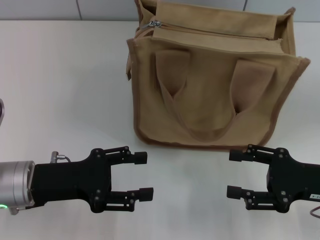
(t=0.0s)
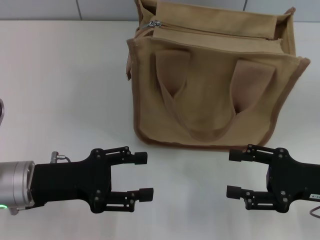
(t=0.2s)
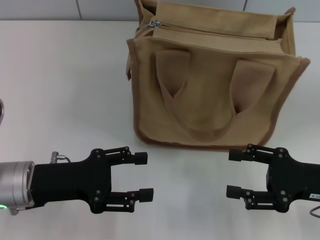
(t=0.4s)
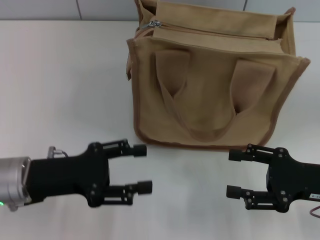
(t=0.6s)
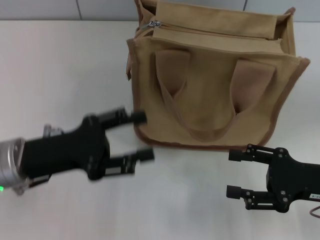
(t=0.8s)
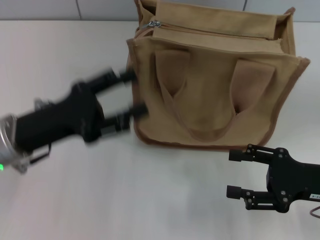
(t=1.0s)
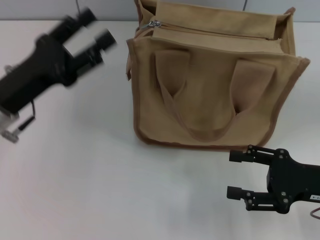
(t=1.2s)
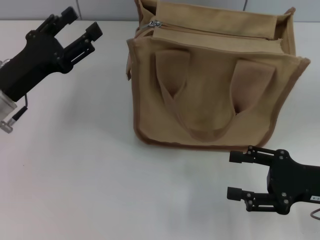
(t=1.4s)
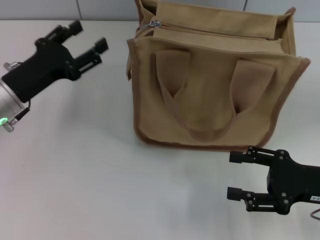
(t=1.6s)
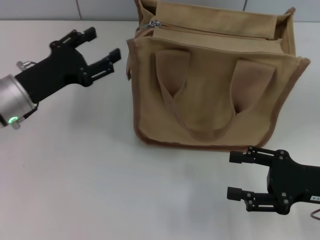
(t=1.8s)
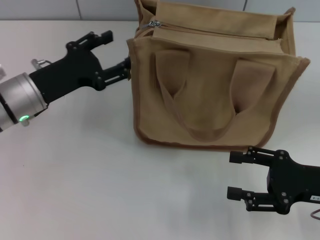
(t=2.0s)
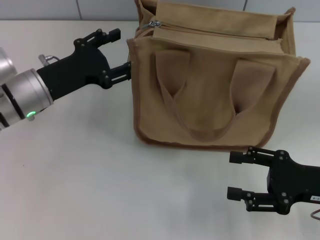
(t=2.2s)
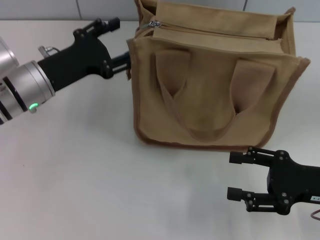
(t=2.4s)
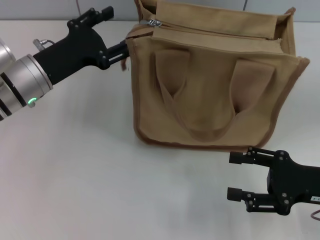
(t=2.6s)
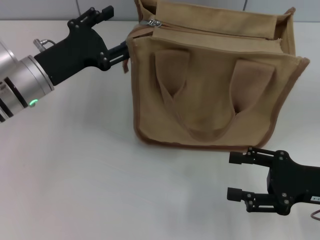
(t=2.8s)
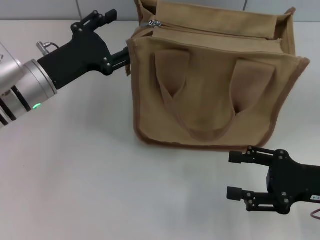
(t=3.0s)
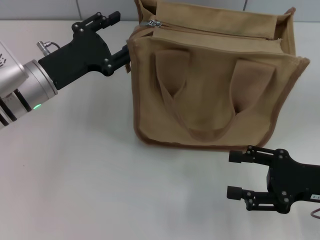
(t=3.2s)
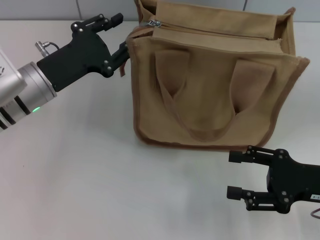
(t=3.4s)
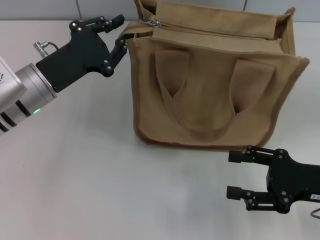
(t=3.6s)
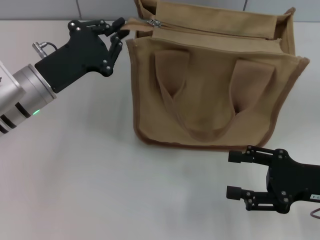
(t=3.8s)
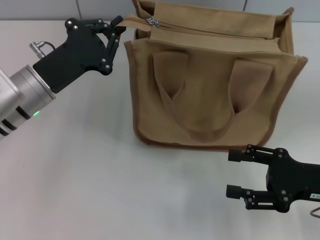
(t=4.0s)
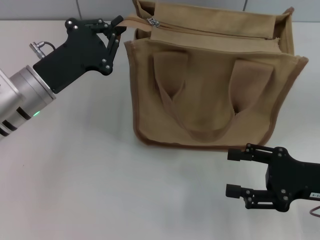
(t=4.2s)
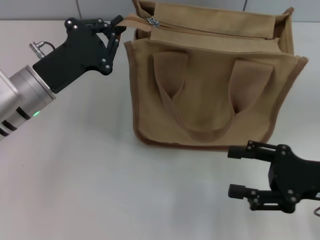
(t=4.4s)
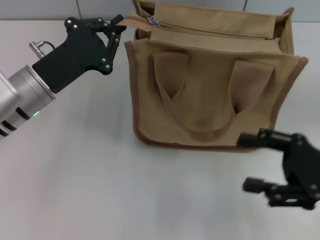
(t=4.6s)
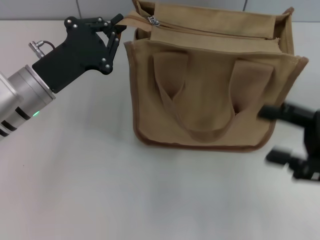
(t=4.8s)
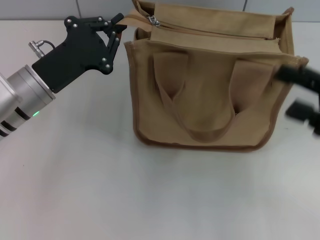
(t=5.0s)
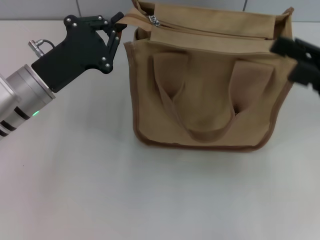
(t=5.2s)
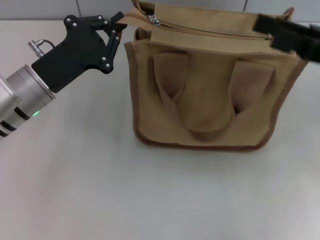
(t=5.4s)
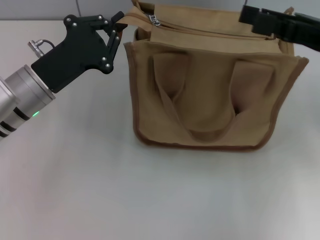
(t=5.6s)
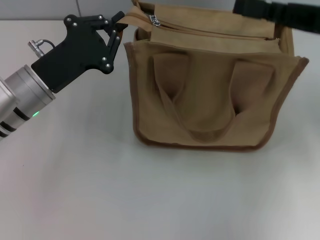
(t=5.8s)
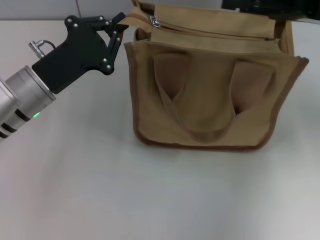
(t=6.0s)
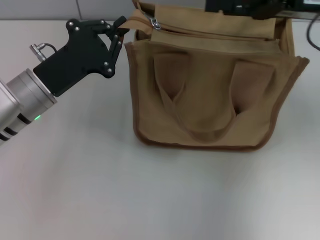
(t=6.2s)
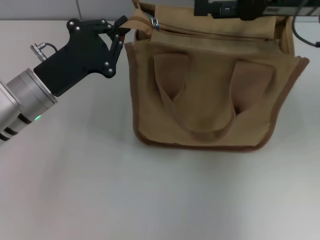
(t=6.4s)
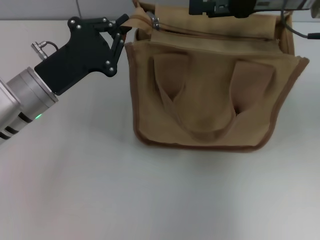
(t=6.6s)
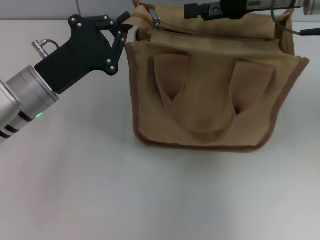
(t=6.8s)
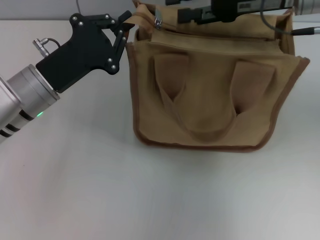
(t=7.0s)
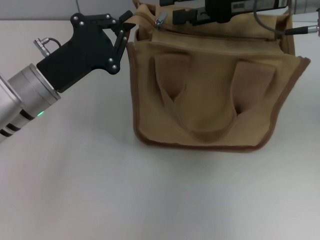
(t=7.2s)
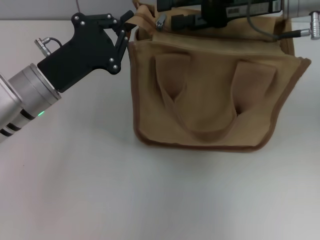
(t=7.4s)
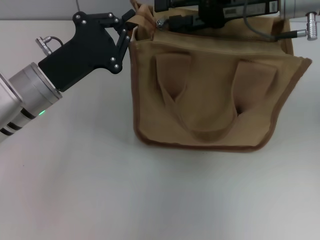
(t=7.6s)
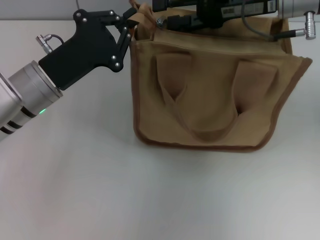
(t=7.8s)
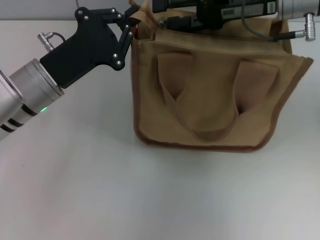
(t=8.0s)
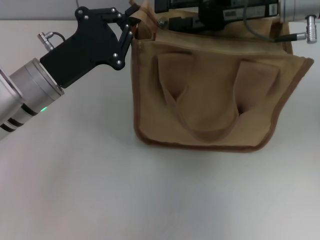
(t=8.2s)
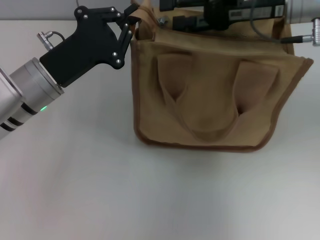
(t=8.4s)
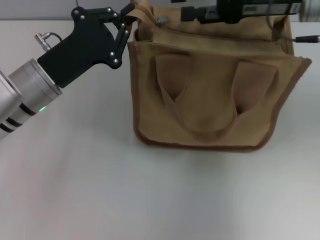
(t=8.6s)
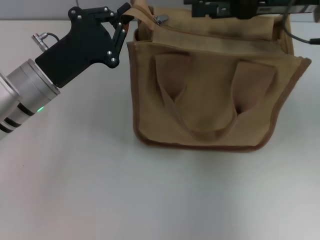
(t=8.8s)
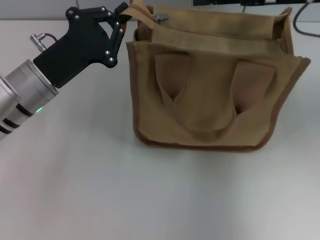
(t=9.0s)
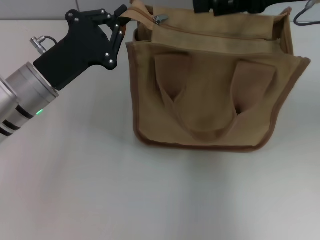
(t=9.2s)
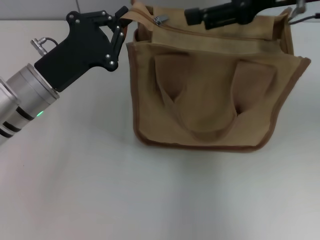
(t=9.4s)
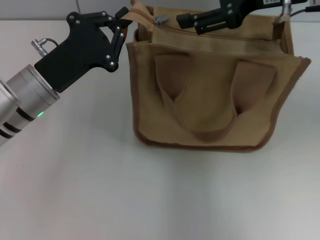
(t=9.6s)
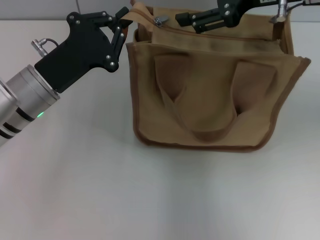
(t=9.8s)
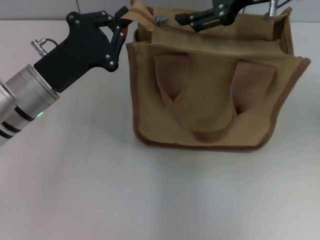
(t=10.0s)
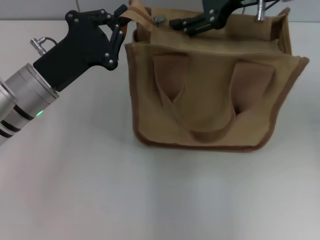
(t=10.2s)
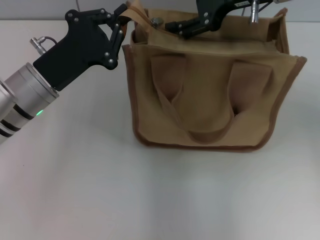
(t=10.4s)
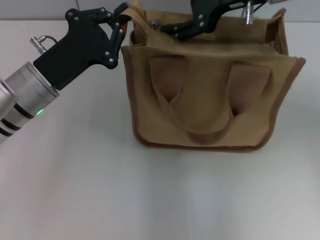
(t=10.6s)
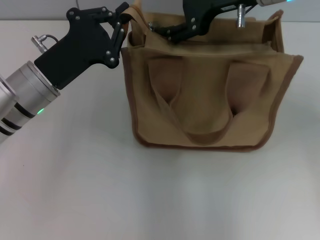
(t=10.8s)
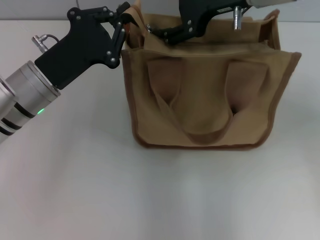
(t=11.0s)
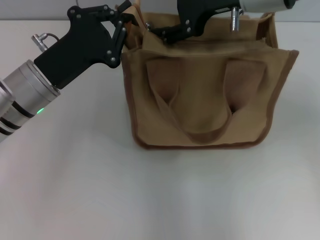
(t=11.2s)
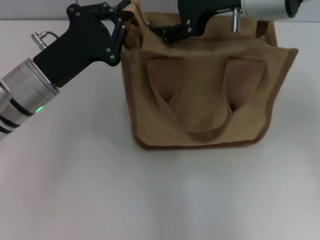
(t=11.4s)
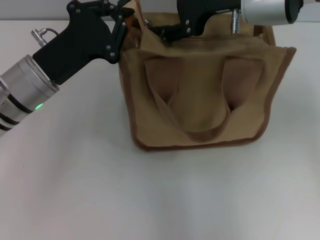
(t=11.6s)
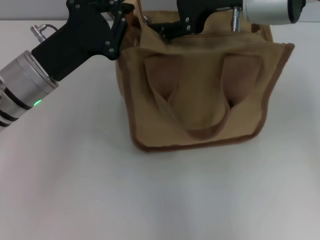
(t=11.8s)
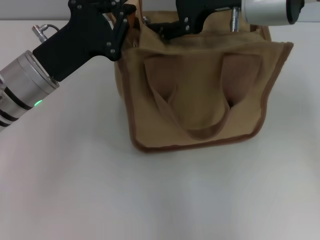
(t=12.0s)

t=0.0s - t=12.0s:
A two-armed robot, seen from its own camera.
t=0.0s - t=1.6s: The left gripper is displaced forward by some 10 cm.
t=1.6s - t=3.0s: The left gripper shifts by roughly 5 cm.
t=3.0s - t=4.4s: The left gripper closes its fingers.
t=4.4s - t=6.0s: The right gripper moves forward and upward, roughly 20 cm.
t=6.0s - t=7.6s: The right gripper travels to the left and forward by approximately 10 cm.
t=7.6s - t=9.0s: The right gripper moves about 5 cm.
t=9.0s - t=10.4s: The right gripper is displaced to the left by approximately 5 cm.
t=10.4s - t=12.0s: There are only small adjustments of the grippers.

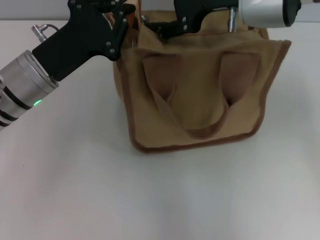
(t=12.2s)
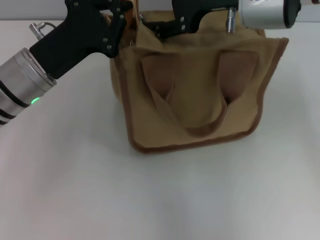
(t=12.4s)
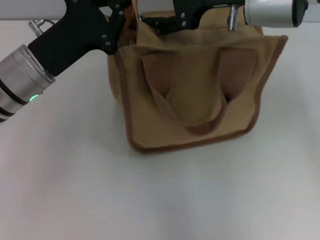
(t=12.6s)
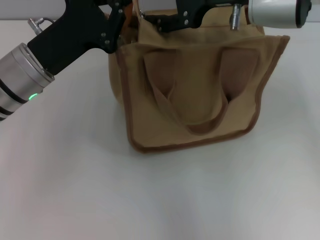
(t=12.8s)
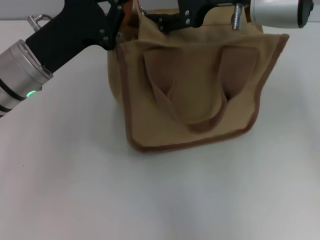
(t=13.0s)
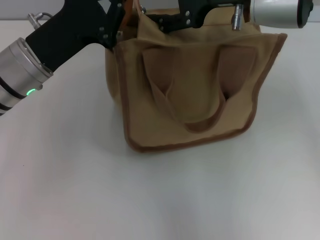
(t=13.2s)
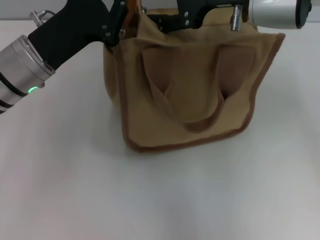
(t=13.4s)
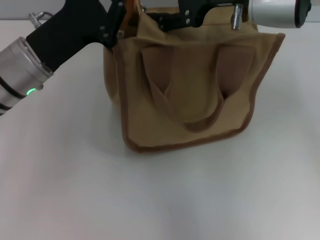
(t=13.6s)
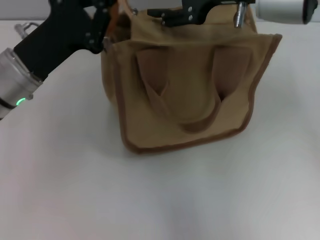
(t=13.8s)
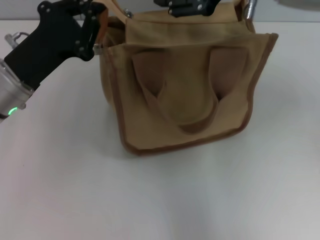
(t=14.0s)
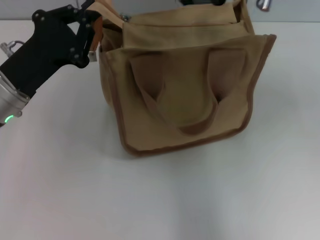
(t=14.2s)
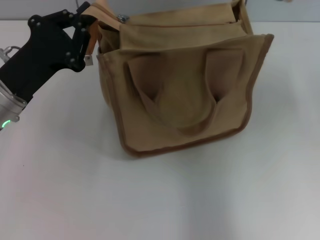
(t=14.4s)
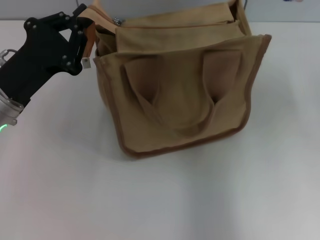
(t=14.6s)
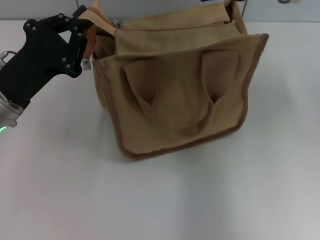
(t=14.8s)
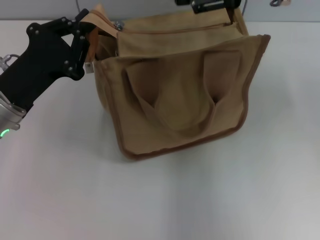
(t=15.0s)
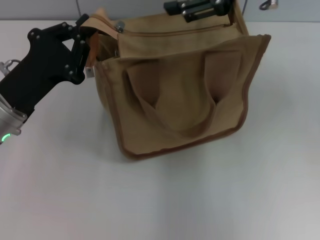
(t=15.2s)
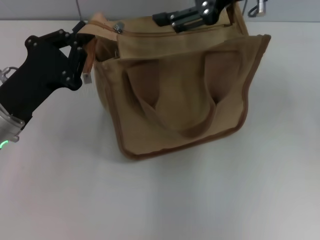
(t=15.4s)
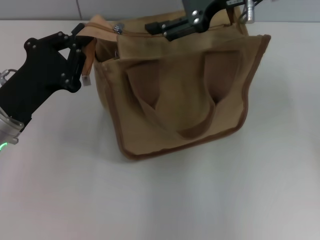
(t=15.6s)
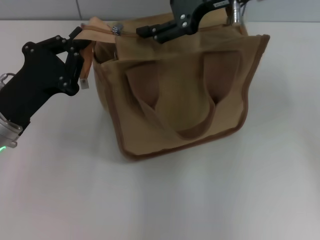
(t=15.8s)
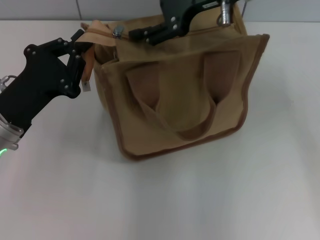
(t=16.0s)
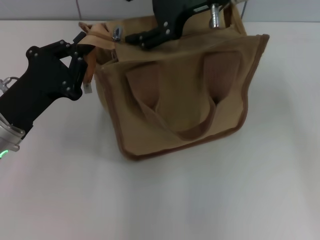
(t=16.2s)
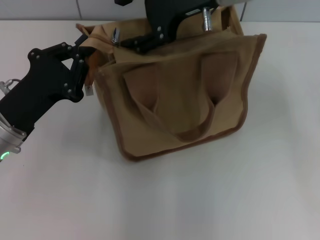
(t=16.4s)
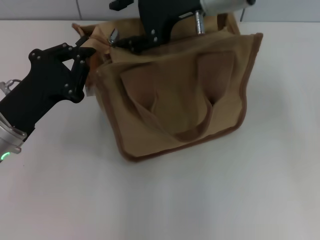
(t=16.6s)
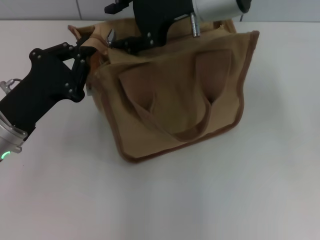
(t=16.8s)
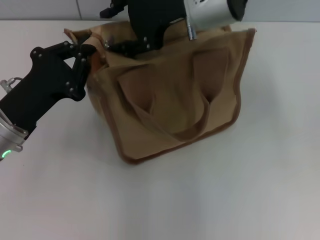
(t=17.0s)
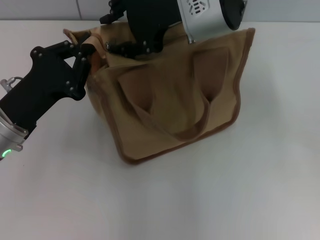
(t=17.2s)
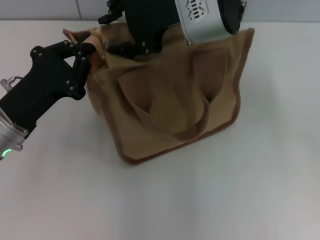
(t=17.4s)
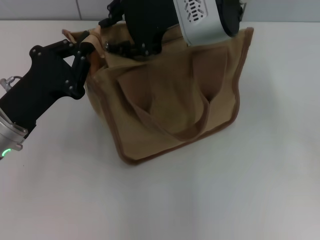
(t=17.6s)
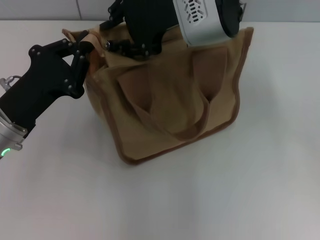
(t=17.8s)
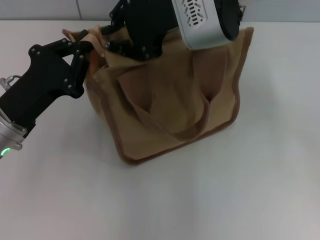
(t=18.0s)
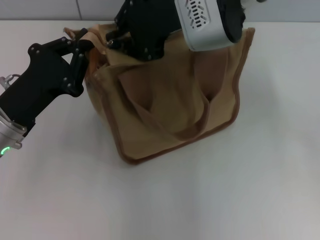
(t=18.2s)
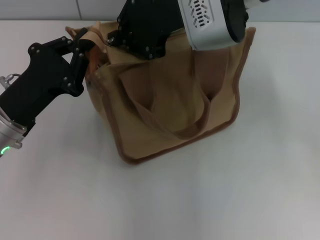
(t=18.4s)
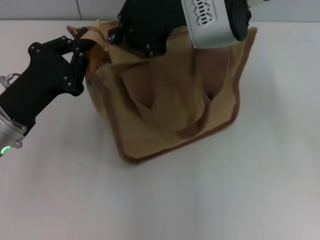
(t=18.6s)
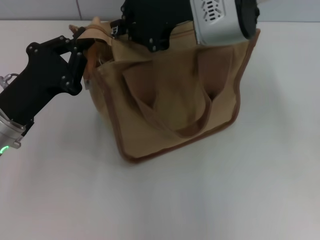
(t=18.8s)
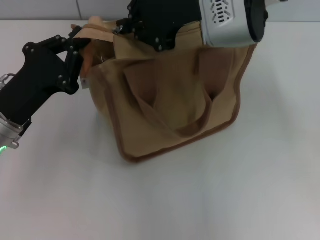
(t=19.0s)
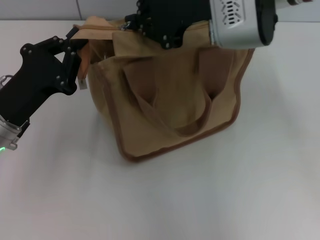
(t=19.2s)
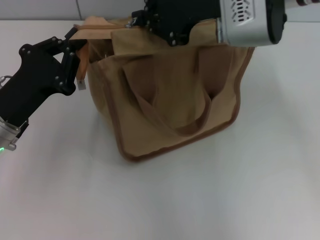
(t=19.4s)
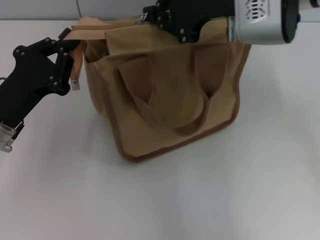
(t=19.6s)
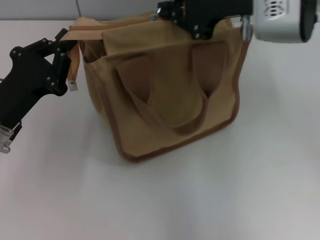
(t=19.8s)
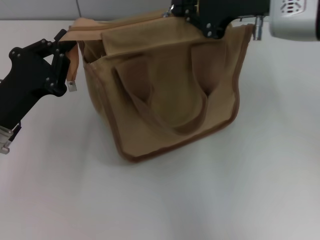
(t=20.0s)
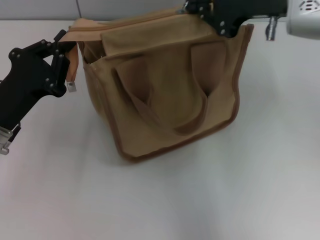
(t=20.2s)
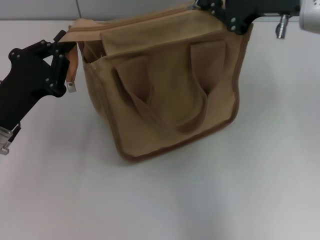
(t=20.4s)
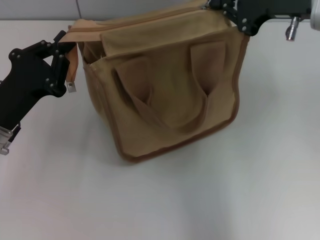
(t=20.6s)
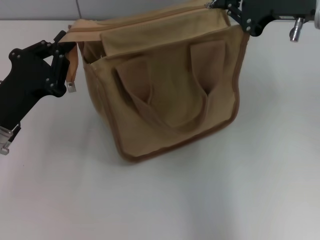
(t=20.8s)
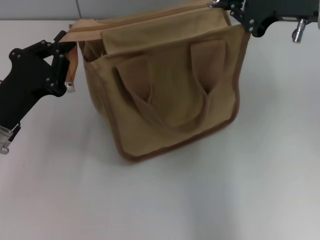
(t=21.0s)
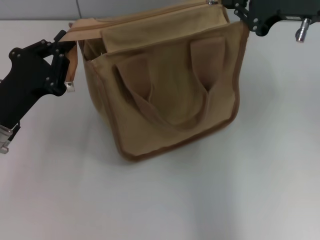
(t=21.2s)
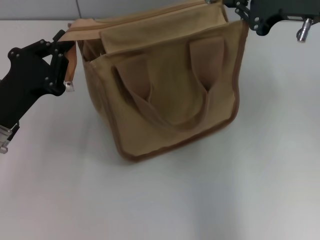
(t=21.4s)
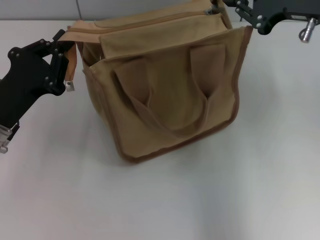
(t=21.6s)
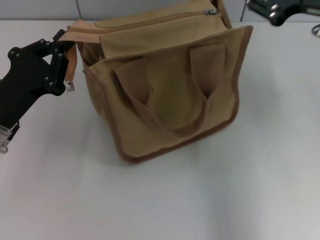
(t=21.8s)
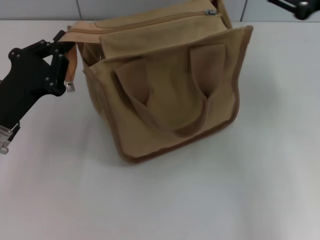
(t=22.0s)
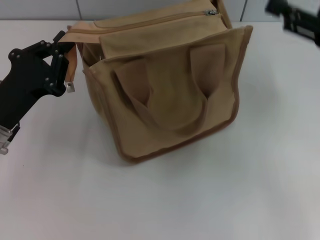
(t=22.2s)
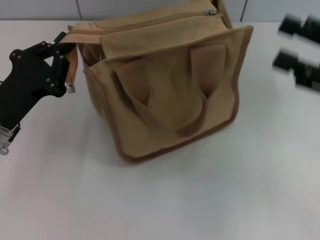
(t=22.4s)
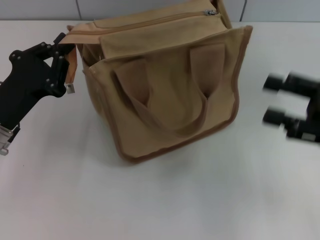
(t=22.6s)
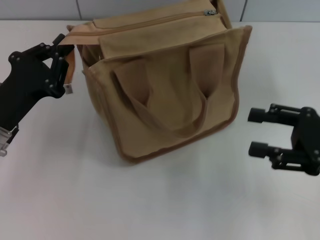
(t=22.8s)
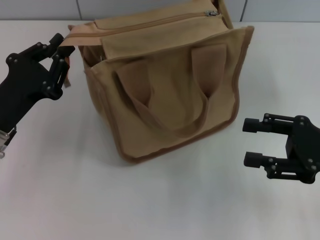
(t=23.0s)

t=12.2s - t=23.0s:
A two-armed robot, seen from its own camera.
Step, t=12.2s - t=21.4s: Pull up the zipper with your right hand.
t=12.2s - t=13.8s: The grippers stay close to where they were, moving slightly.
t=13.8s - t=15.2s: The left gripper changes place by some 5 cm. Meanwhile the right gripper moves some 5 cm.
t=15.2s - t=16.8s: The right gripper moves to the left, roughly 10 cm.
t=16.8s - t=18.4s: The right gripper closes its fingers.
t=18.4s - t=20.0s: The right gripper goes approximately 10 cm to the right.
t=20.0s - t=21.4s: The right gripper goes roughly 5 cm to the right.
t=21.4s - t=23.0s: The right gripper moves downward, backward and to the right, about 20 cm, and opens its fingers.
